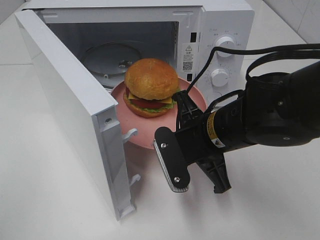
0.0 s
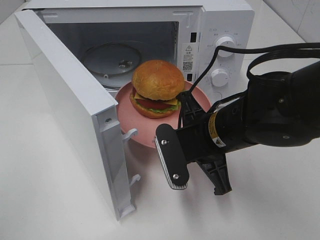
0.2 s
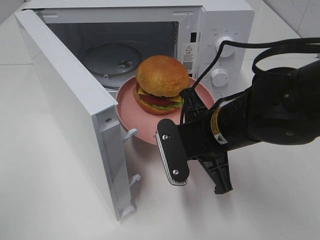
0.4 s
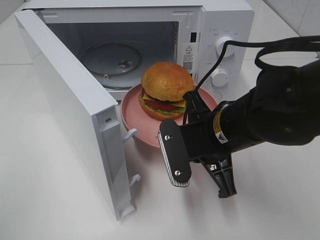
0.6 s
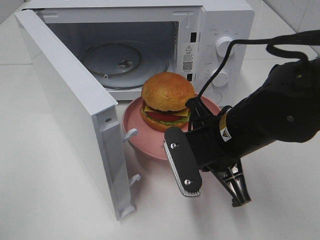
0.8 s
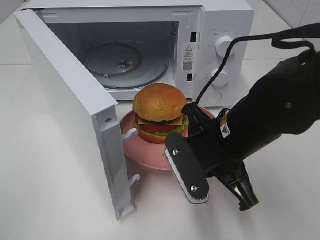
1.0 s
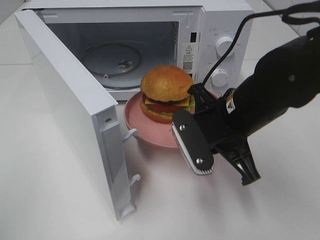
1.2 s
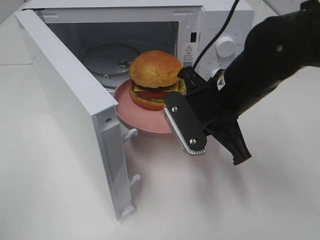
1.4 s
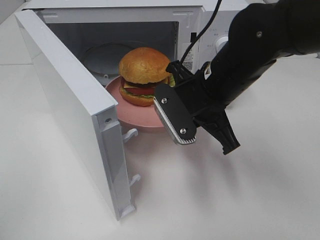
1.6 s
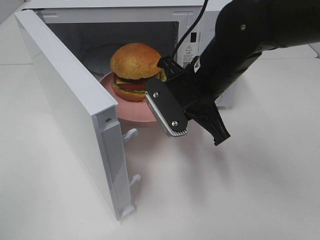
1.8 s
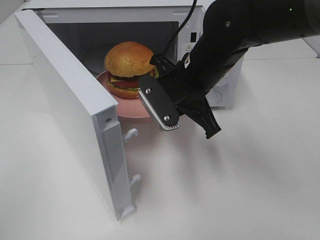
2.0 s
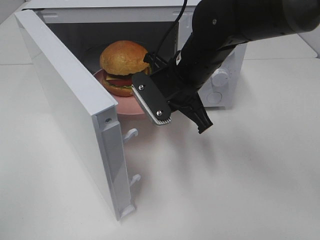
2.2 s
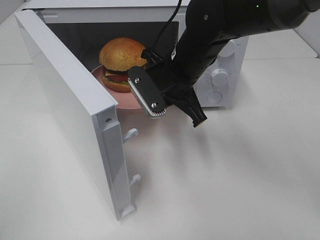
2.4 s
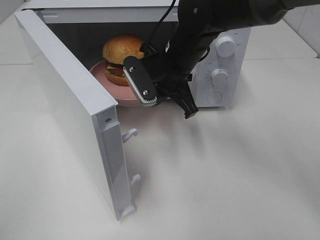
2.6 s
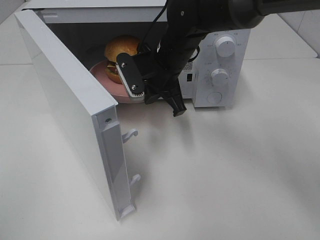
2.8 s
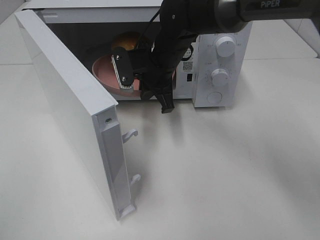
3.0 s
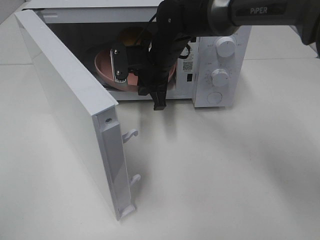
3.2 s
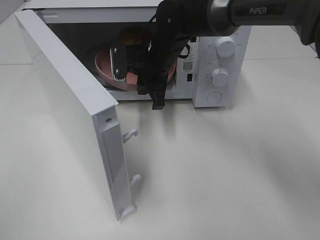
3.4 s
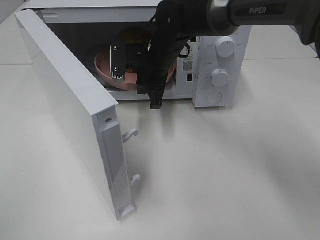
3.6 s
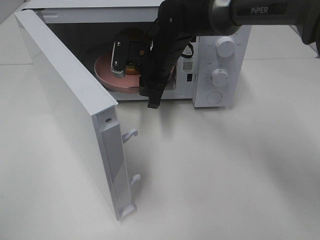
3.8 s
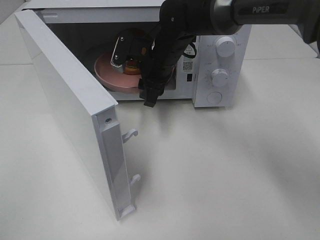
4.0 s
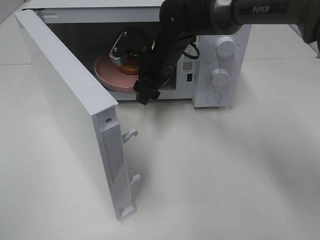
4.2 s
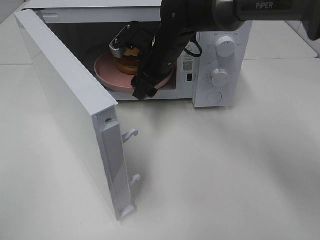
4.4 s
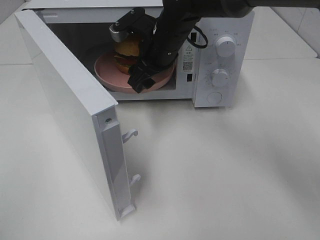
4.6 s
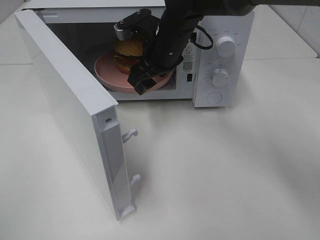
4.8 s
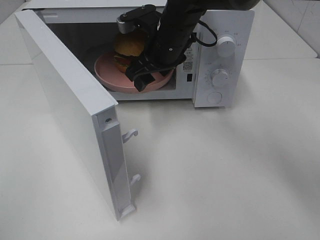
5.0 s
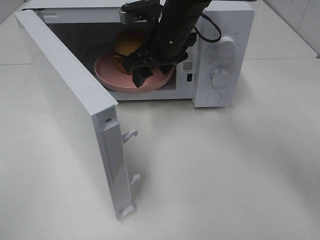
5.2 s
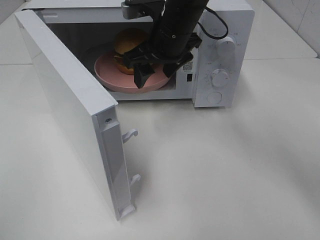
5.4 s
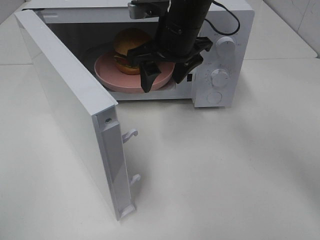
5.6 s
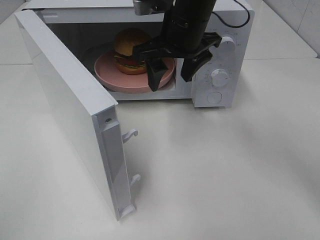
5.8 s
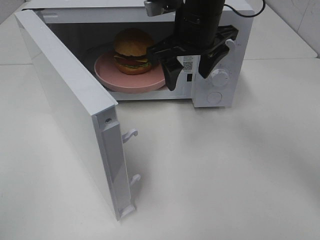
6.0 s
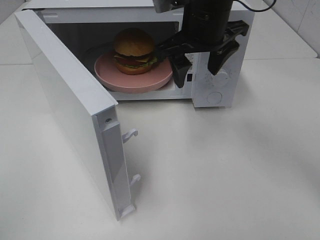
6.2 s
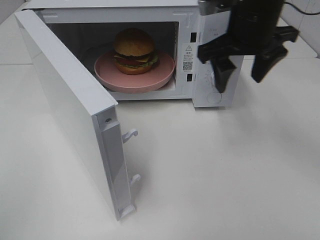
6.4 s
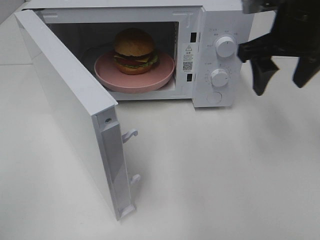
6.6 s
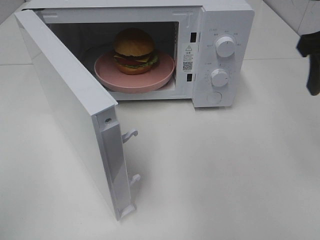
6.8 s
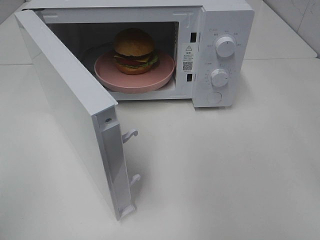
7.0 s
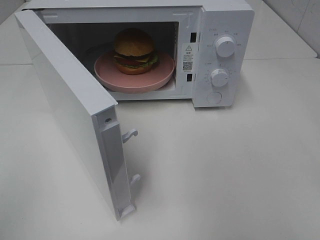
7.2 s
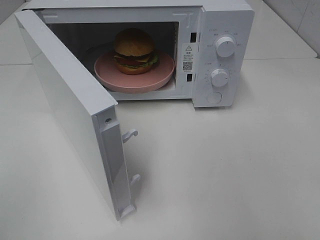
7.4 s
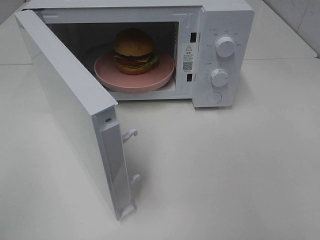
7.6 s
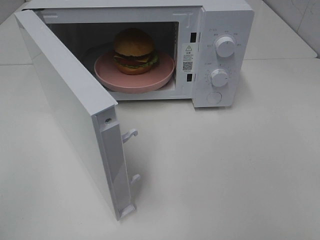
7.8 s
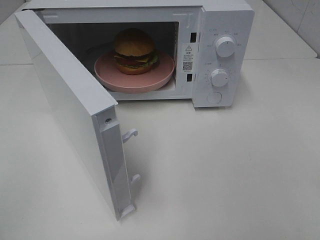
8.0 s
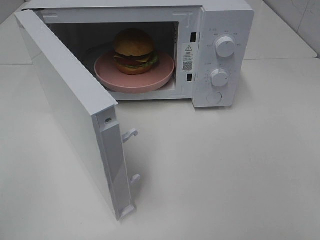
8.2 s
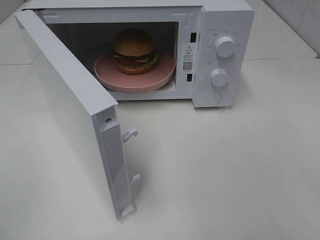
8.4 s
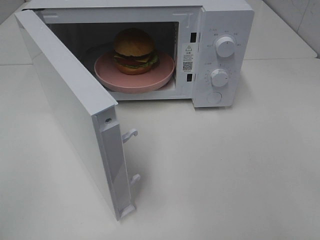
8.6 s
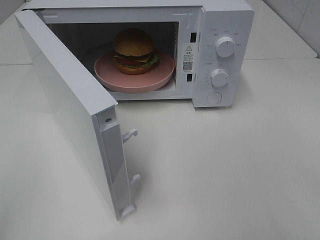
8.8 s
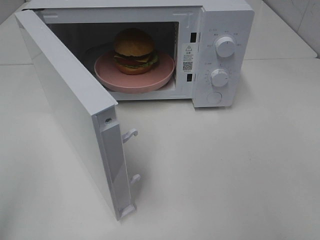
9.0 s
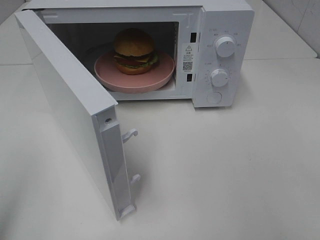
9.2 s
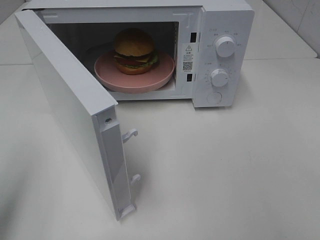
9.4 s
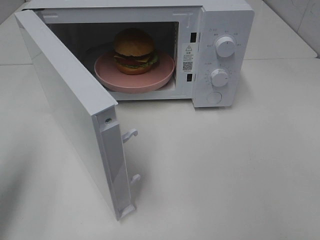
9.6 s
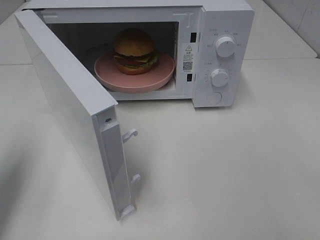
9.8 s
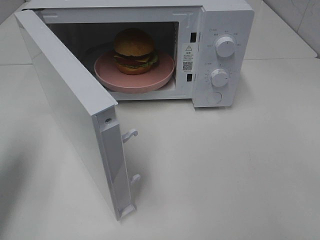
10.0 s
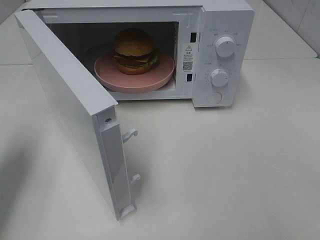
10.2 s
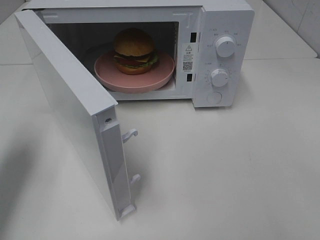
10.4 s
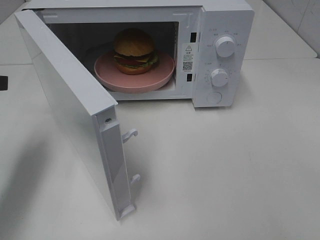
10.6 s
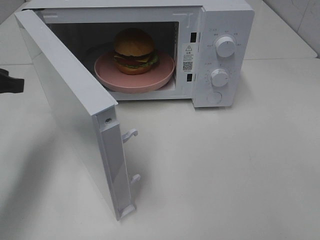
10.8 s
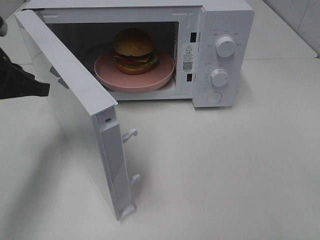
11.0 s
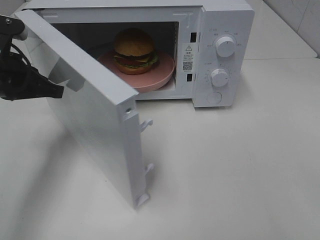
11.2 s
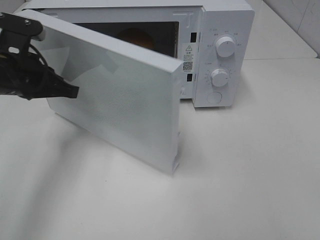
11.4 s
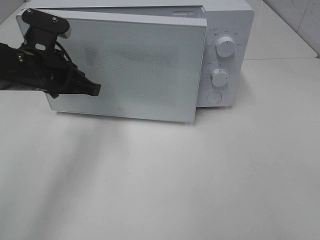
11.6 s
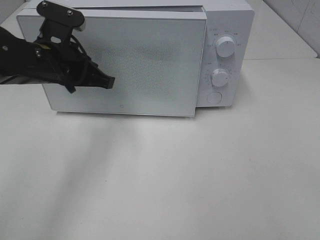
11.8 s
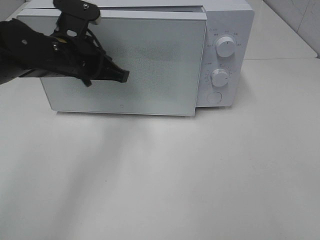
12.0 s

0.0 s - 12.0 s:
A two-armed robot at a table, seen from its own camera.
Task of the whole recording: Heat the burger.
Step, 0.0 s - 3.8 s: Right hand: place the plate in the microwave.
0.0 s - 1.6 s: The right gripper shifts some 5 cm upward.
1.6 s - 3.0 s: The right gripper shifts approximately 15 cm forward and to the left.
3.0 s - 4.4 s: The right gripper opens.
4.4 s - 6.0 s: The right gripper is displaced upward and backward by about 10 cm.
6.0 s - 7.6 s: The right gripper shifts approximately 40 cm backward and to the right.
9.0 s - 10.4 s: The left gripper heads forward, covering about 20 cm.
10.4 s - 12.0 s: The left gripper goes approximately 20 cm to the right and forward.

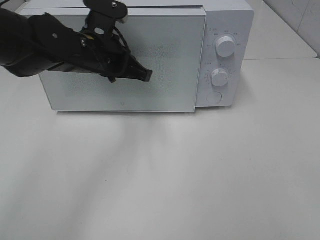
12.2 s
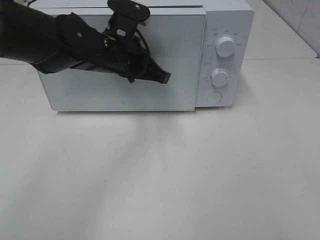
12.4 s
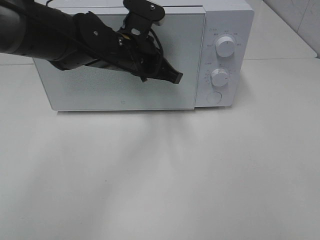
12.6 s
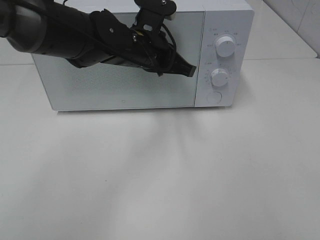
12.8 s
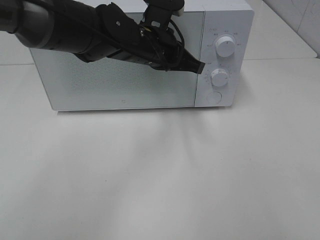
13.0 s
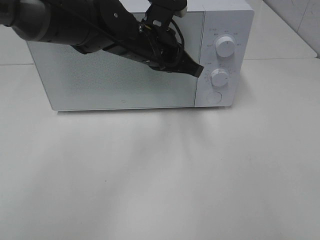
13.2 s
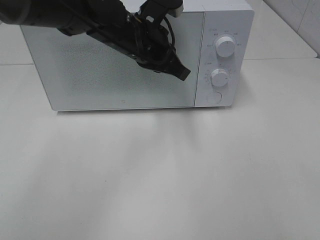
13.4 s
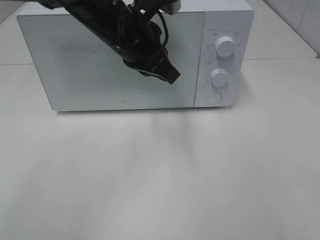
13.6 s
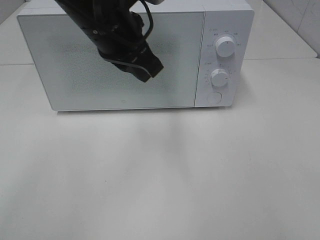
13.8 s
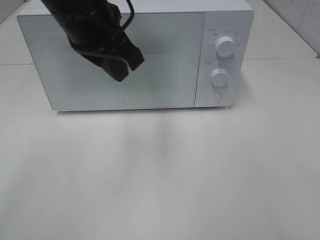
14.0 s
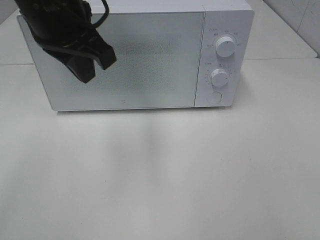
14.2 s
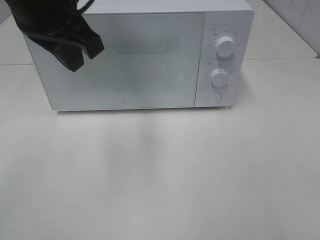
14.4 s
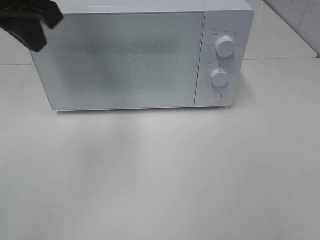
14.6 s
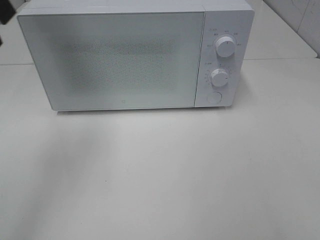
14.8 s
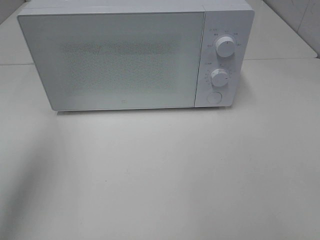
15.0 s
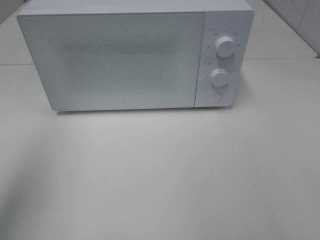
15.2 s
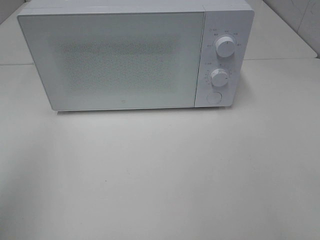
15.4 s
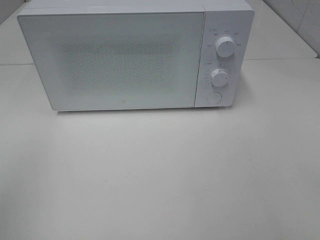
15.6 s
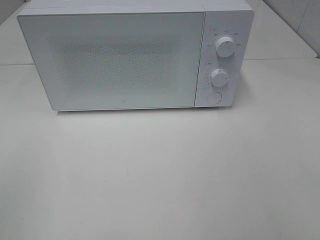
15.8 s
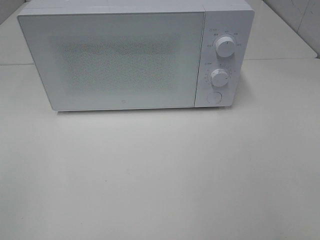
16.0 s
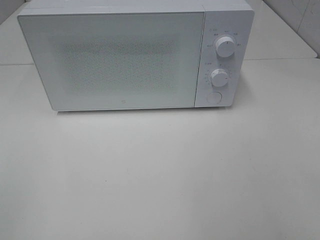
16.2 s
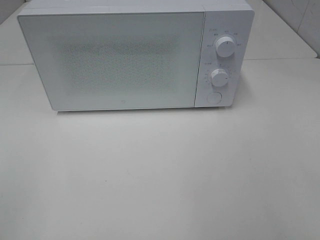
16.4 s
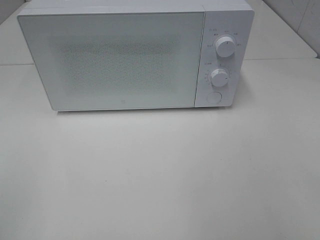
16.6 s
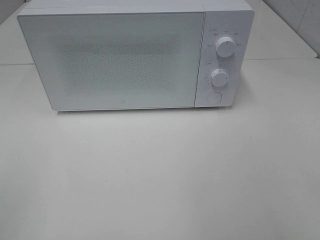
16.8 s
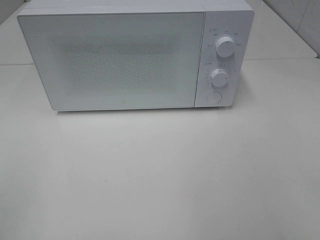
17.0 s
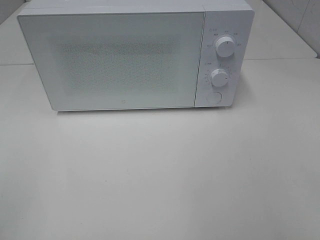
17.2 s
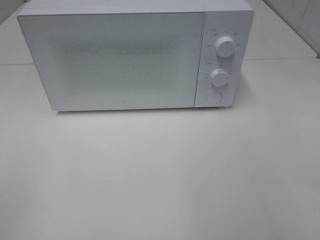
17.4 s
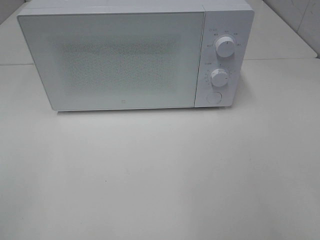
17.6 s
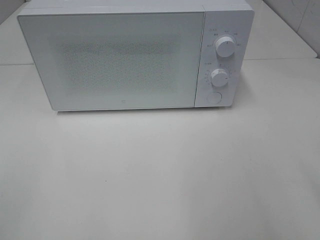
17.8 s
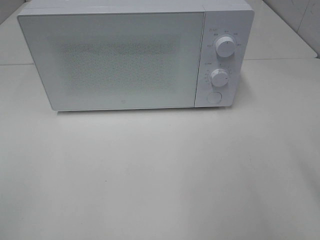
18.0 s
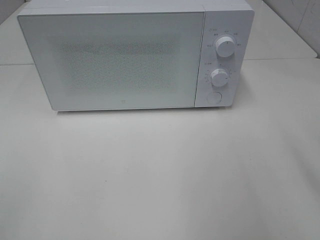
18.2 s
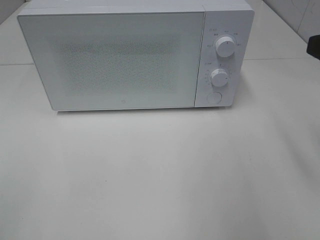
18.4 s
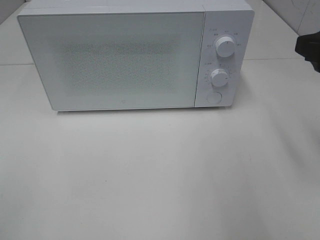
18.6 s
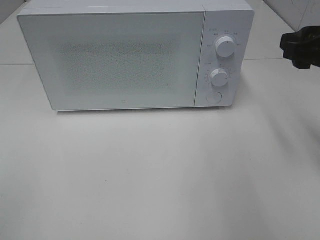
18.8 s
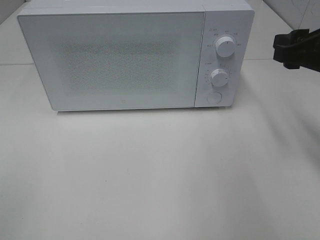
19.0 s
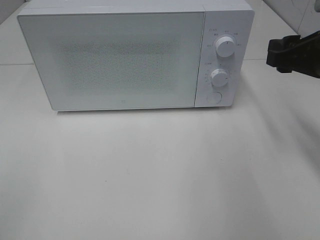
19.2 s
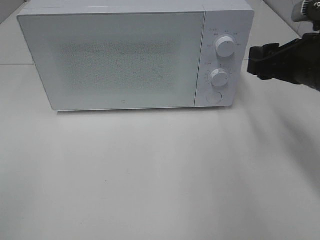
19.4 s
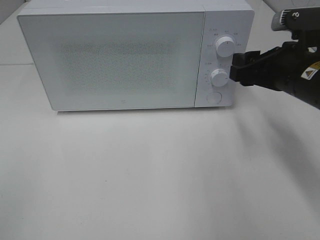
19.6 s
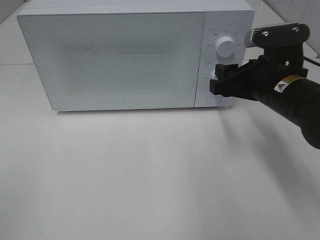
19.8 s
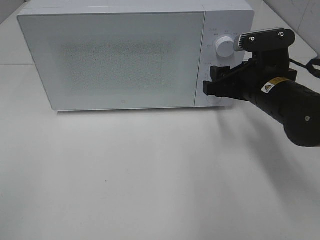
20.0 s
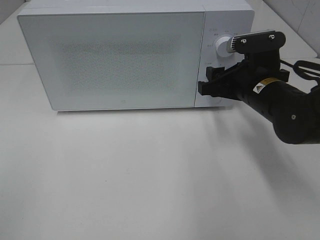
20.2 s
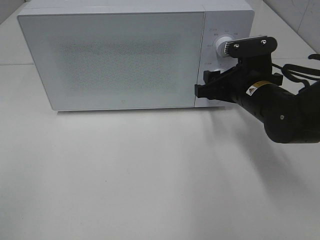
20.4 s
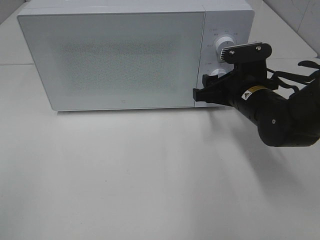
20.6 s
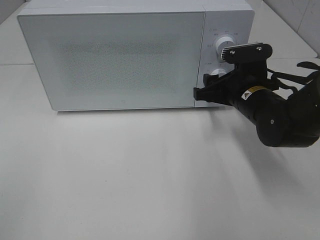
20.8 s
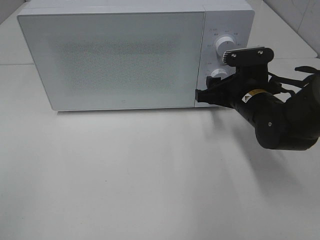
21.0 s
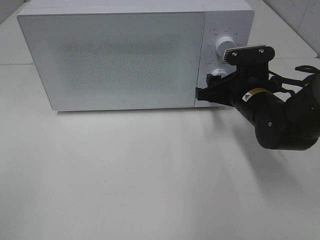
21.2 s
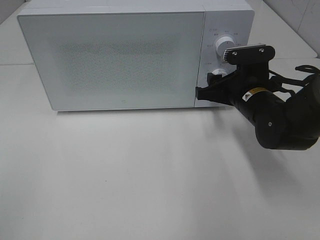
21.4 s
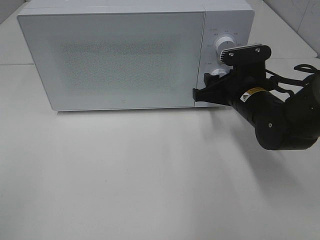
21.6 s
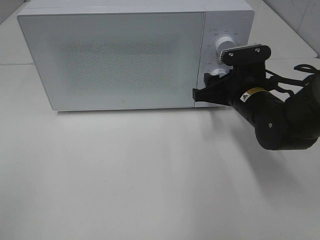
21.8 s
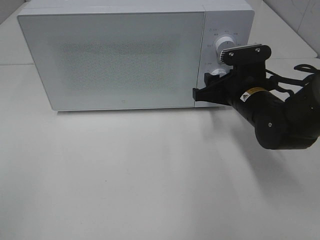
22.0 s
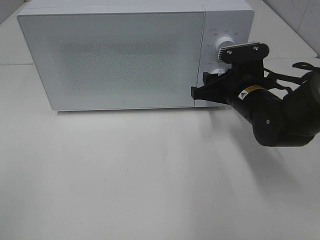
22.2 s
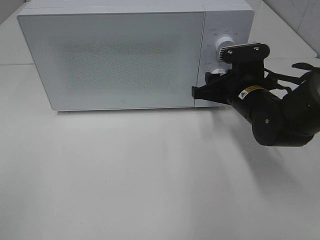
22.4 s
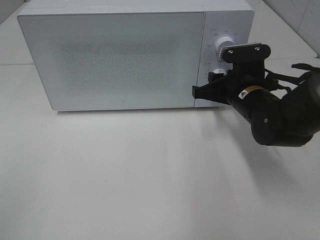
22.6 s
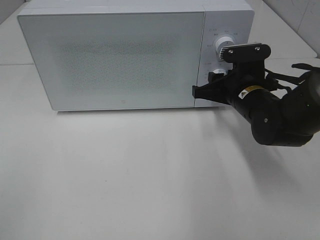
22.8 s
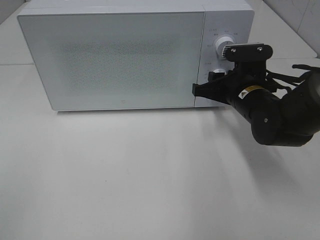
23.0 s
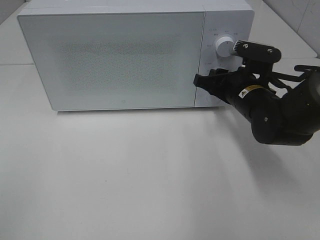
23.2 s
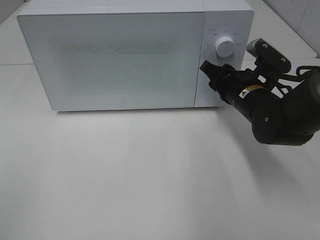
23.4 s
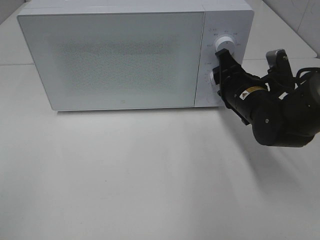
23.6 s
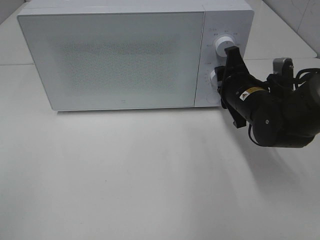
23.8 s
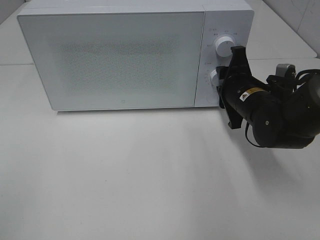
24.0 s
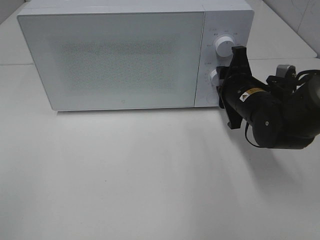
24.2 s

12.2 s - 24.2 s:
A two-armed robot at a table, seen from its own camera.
Task of the whole recording: Heat the burger.
12.2 s - 13.8 s: The left gripper goes about 10 cm upward, and opens up.
13.8 s - 15.2 s: The left gripper shifts some 25 cm to the left and backward, and closes up.
15.2 s - 16.6 s: The left gripper heads backward and downward, covering about 20 cm.
18.2 s - 19.8 s: The right gripper moves forward, downward and to the left, approximately 20 cm.
19.8 s - 21.2 s: The right gripper shifts some 5 cm downward.
21.2 s - 22.6 s: Neither gripper changes place.
